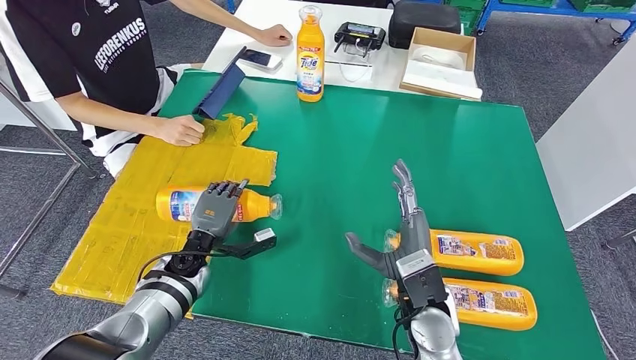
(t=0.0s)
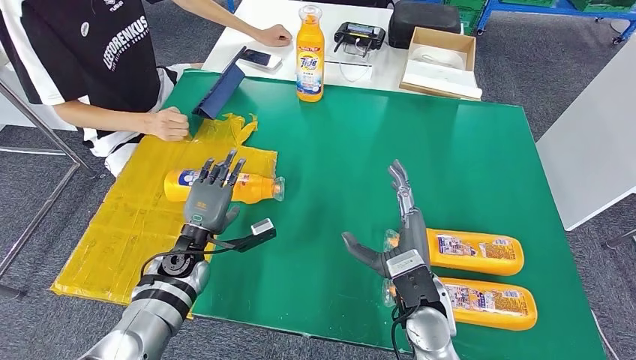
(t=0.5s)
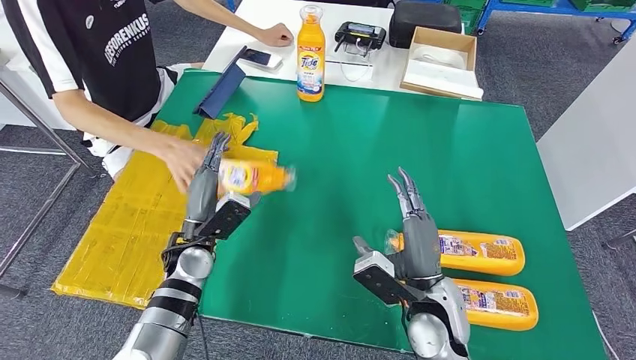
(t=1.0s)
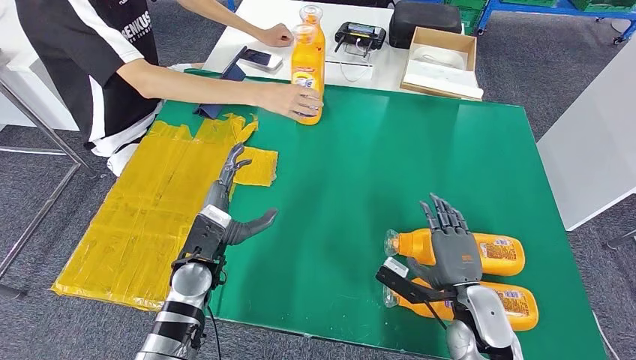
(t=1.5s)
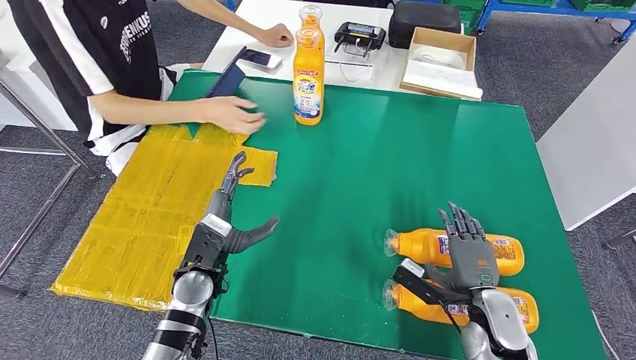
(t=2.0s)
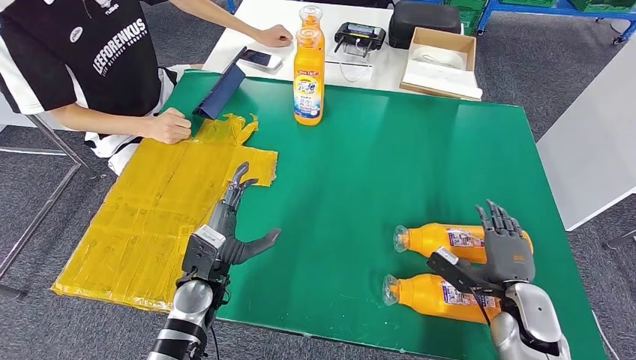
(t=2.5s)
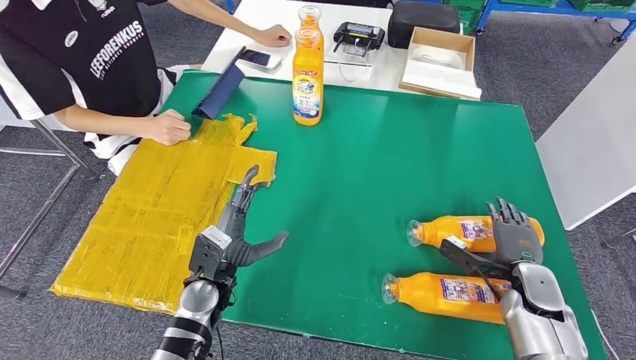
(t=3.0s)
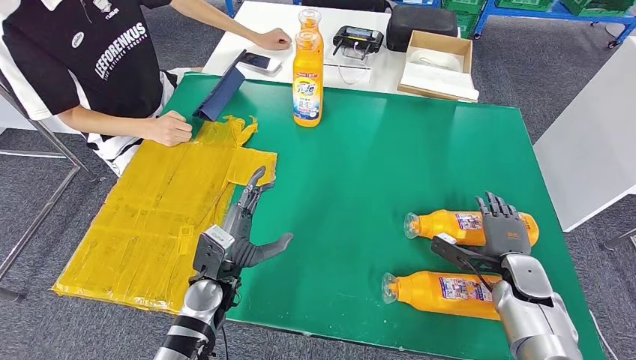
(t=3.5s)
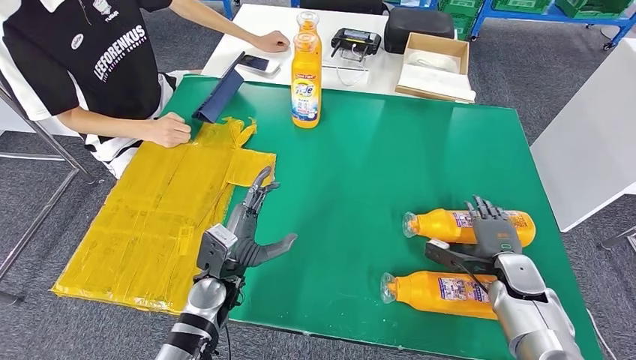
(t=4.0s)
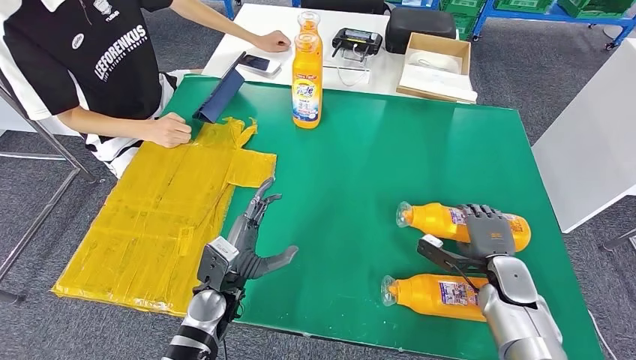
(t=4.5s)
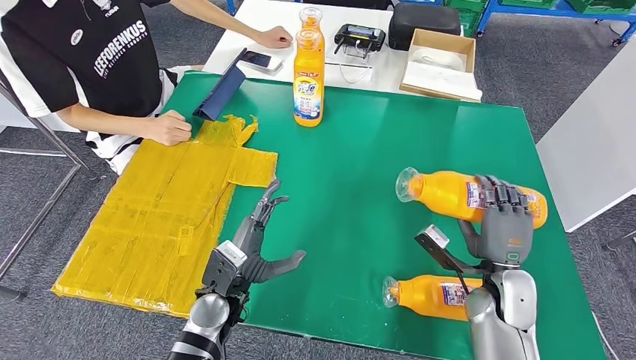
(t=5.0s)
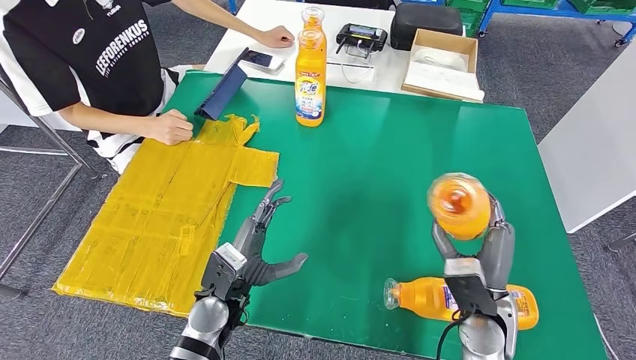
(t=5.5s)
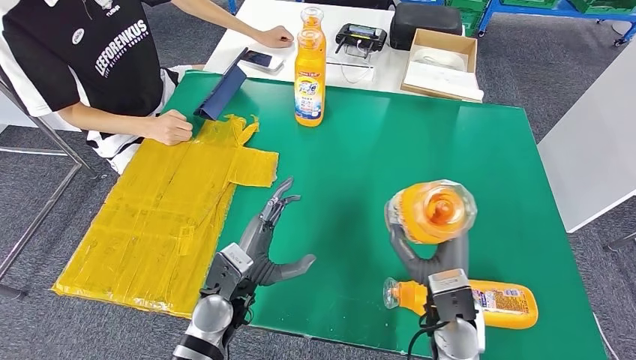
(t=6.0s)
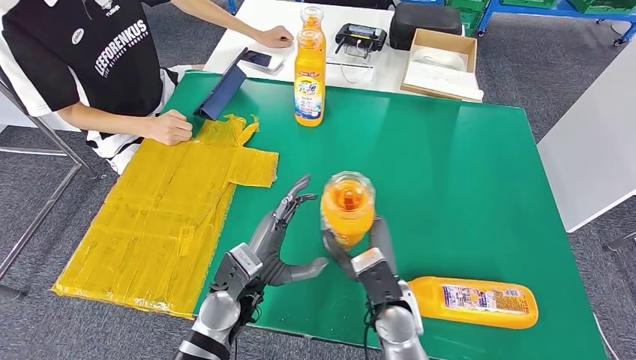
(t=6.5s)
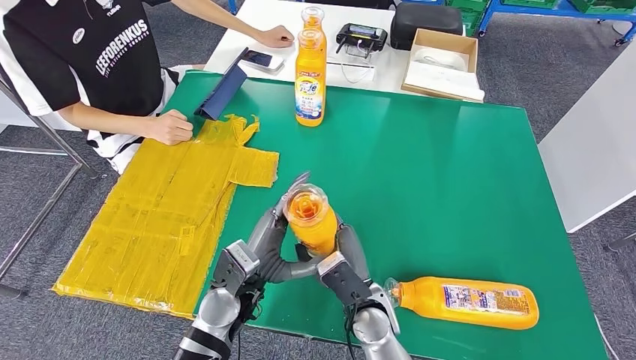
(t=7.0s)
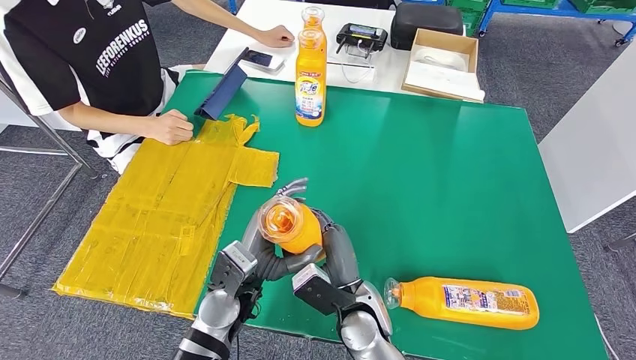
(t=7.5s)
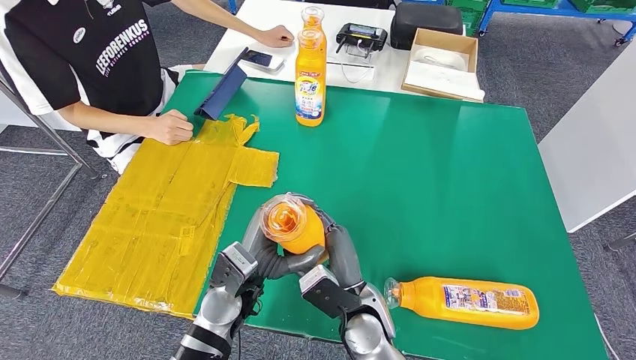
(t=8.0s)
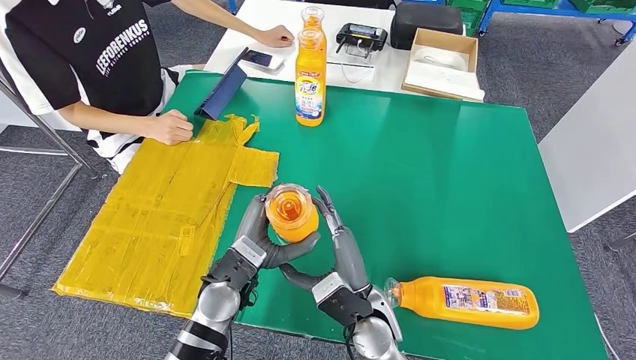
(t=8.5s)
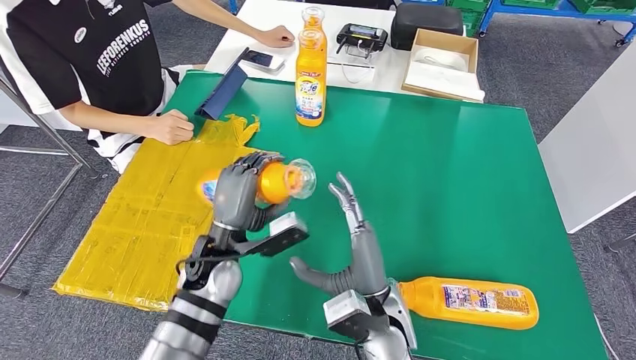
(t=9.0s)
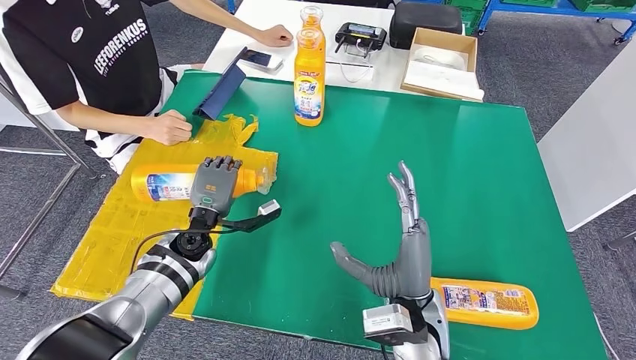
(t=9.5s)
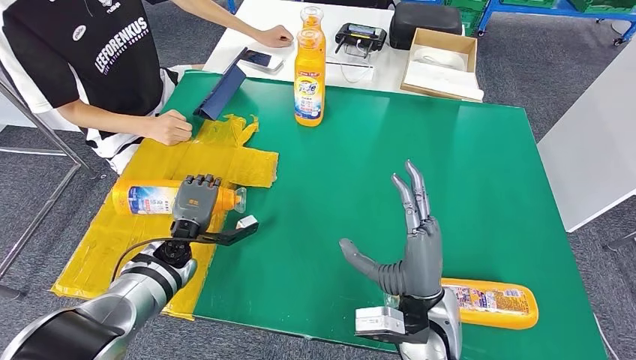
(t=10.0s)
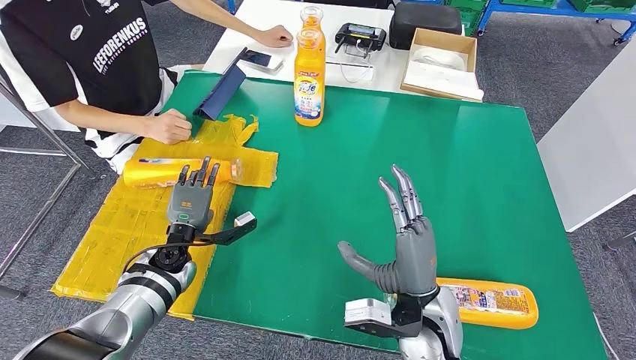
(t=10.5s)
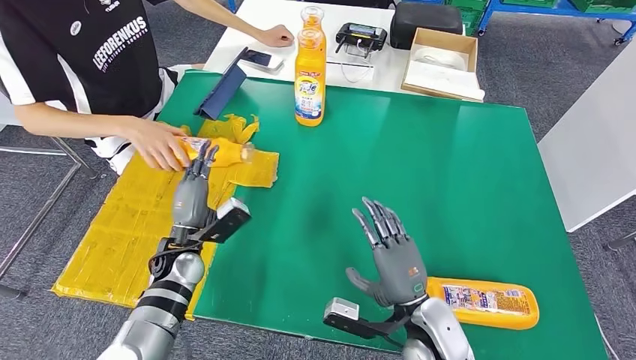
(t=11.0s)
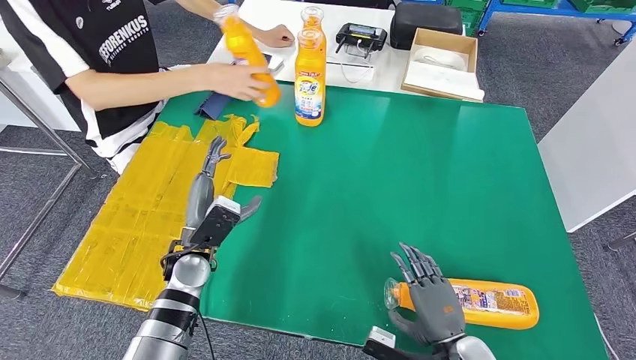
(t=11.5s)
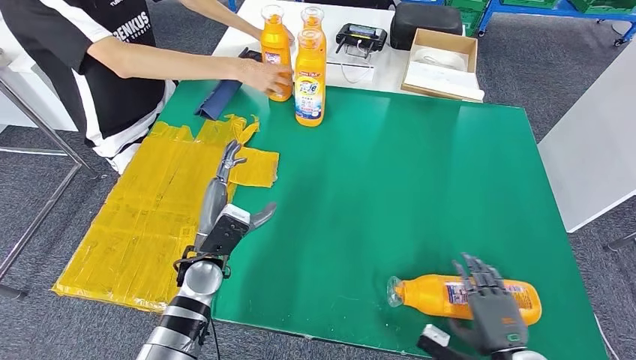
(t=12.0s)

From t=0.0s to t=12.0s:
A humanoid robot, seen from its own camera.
Step, from t=2.0s to t=5.5s: Pick up the fast-moving consumer goods bottle from the table.
Step, from t=6.0s to t=11.0s: Flip the fast-moving consumer goods bottle to the front side.
From t=6.0s to t=8.0s: The right hand is displaced to the left by approximately 15 cm.
From t=8.0s to t=10.0s: The right hand shifts about 10 cm to the right and upward; the left hand shifts approximately 20 cm to the left, forward and downward.

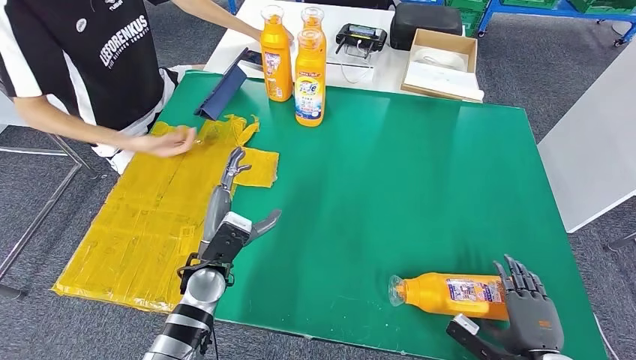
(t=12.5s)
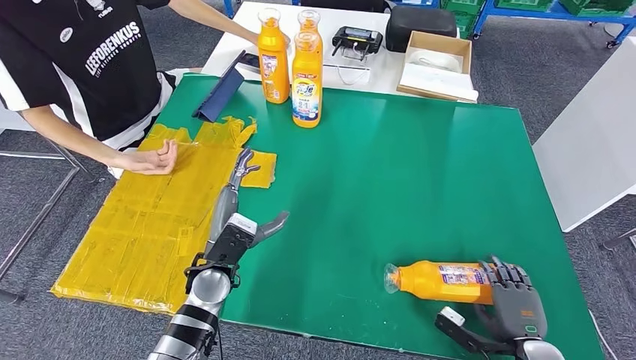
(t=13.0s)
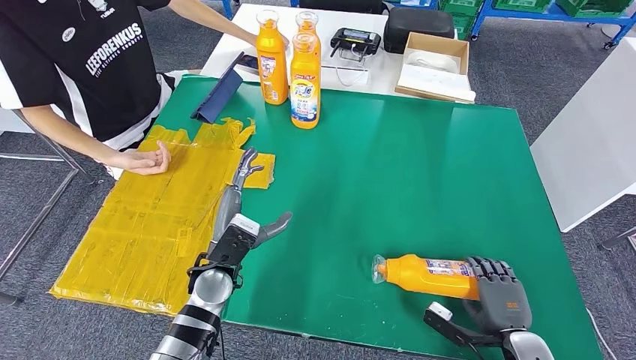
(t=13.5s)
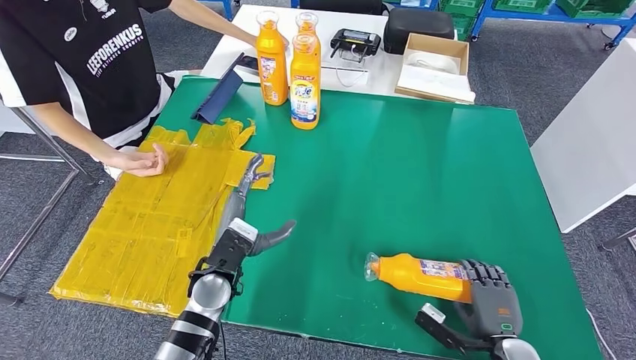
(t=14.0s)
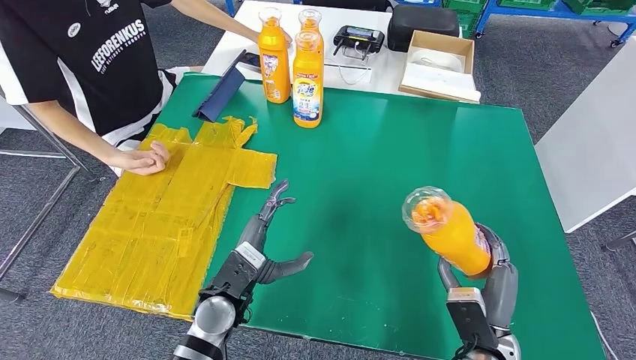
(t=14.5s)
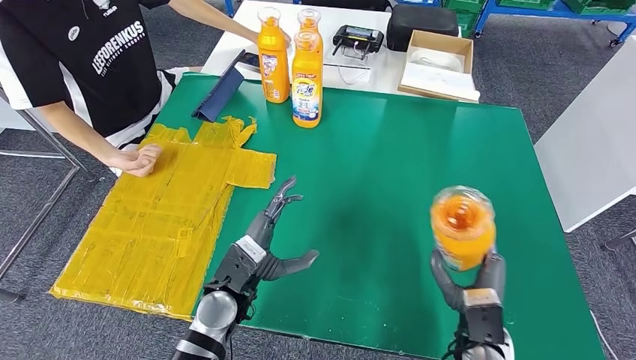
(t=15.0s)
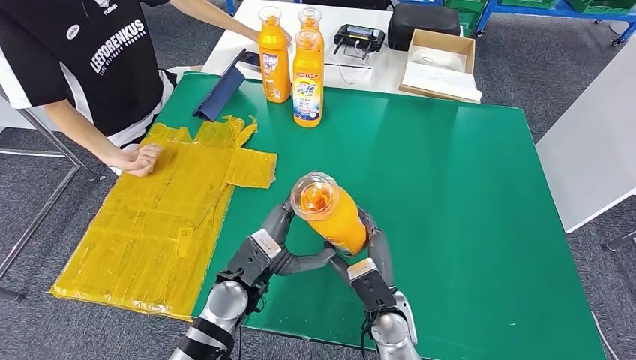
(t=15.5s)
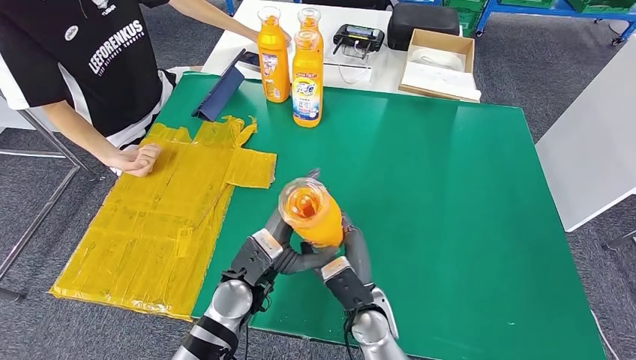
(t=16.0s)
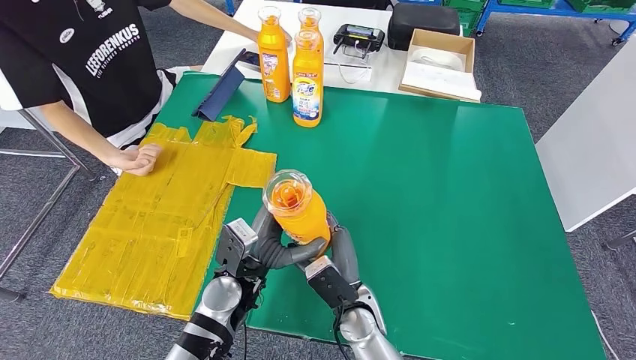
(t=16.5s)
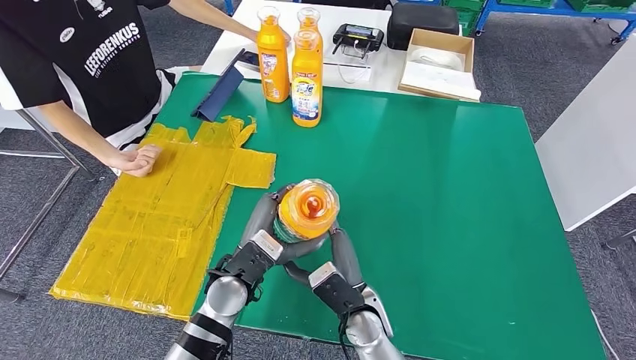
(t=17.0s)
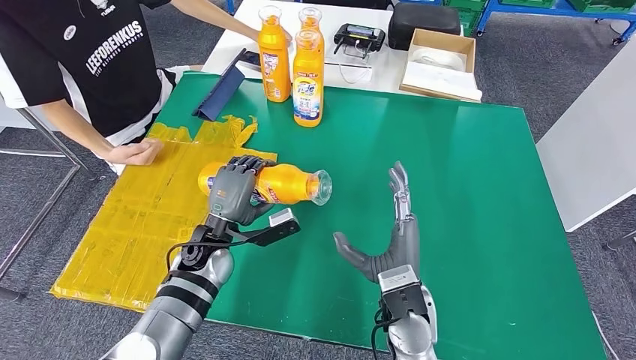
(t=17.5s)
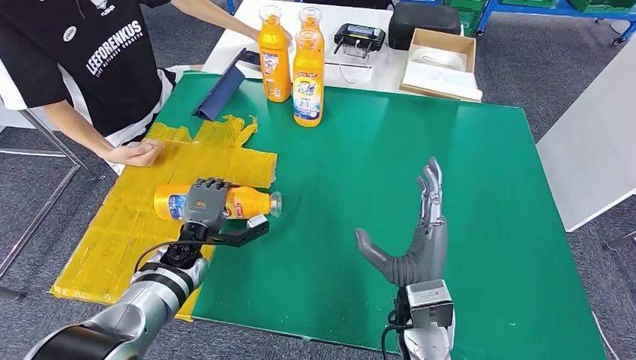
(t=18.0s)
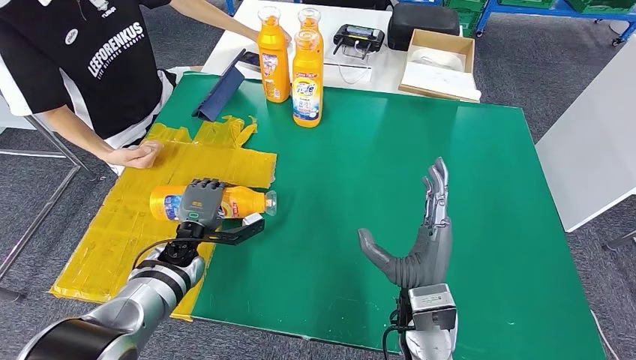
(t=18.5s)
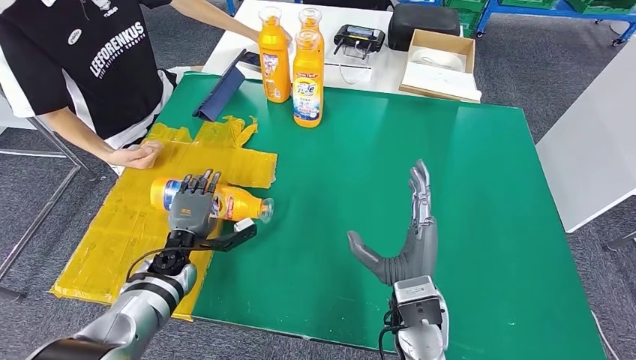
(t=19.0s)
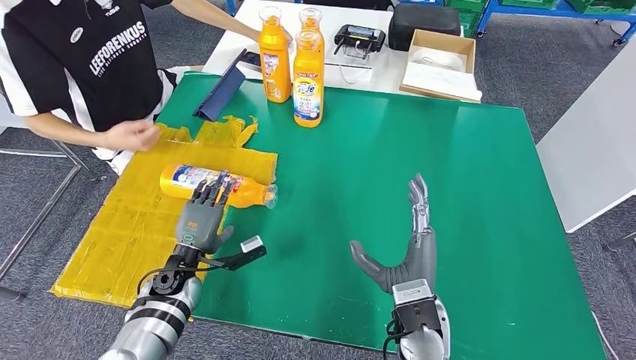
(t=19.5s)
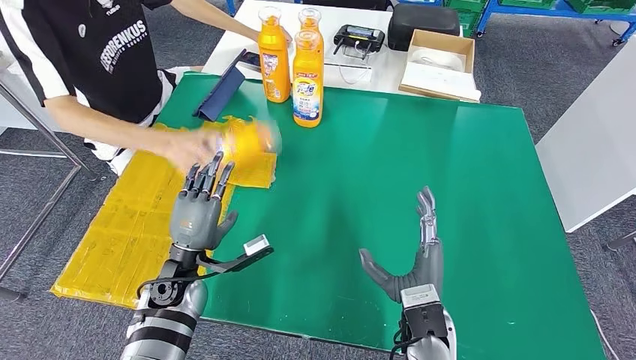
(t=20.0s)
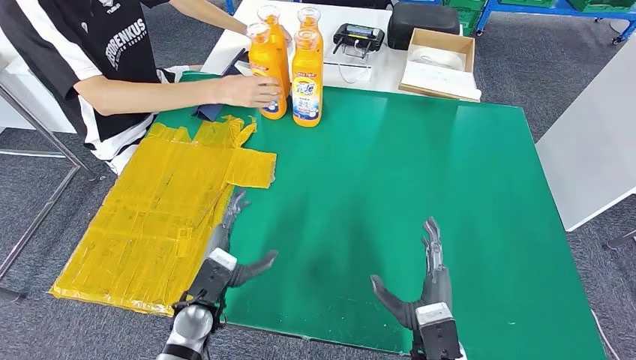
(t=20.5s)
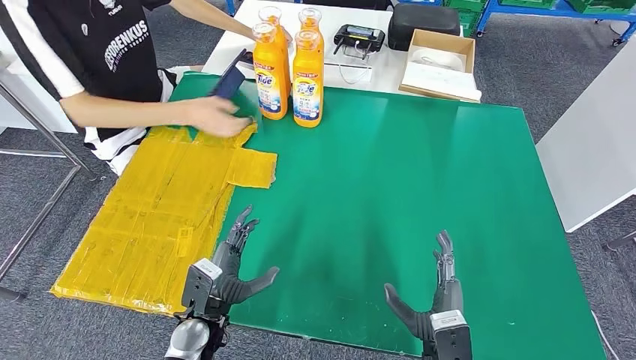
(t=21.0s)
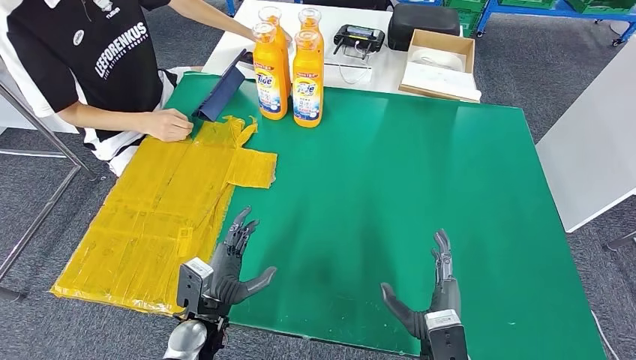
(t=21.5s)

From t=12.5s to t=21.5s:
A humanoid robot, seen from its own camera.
Step, from t=12.5s to t=15.0s: Pick up the fast-moving consumer goods bottle from the table.
Step, from t=15.5s to t=21.5s: Flip the fast-moving consumer goods bottle to the front side.
From t=14.5s to t=17.0s: The right hand goes about 20 cm to the left.
From t=19.5s to t=21.5s: The right hand travels downward and backward by some 10 cm. The left hand goes roughly 10 cm backward and to the right.
